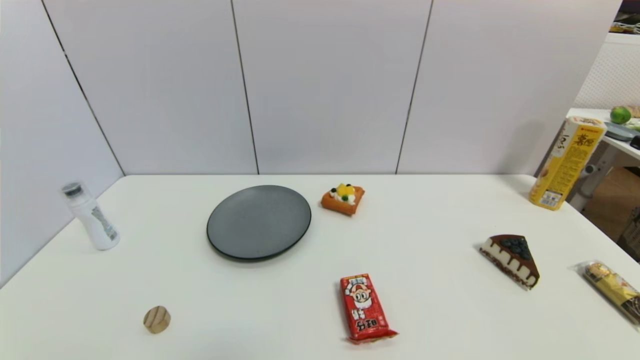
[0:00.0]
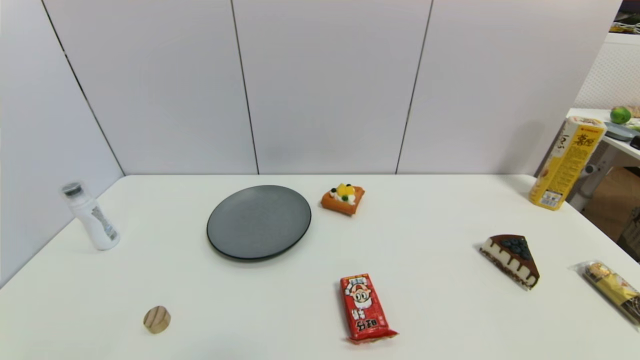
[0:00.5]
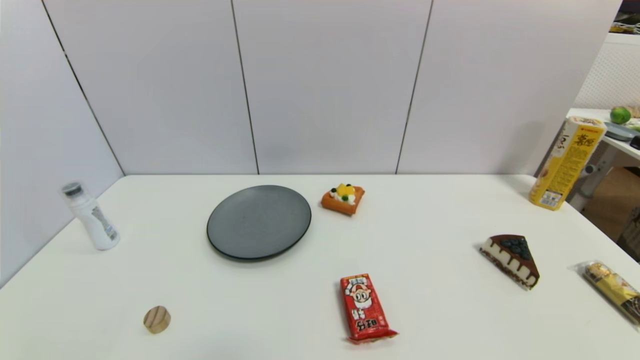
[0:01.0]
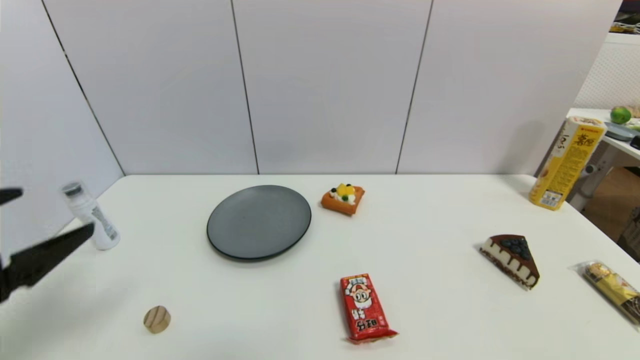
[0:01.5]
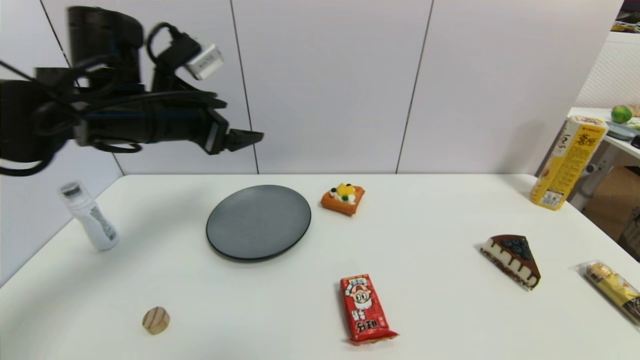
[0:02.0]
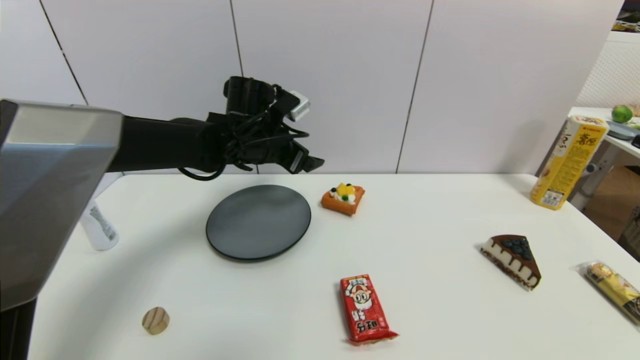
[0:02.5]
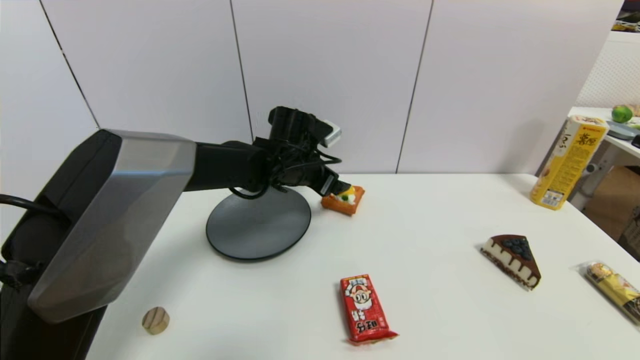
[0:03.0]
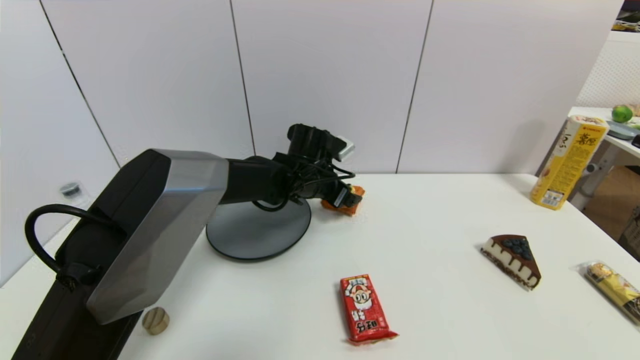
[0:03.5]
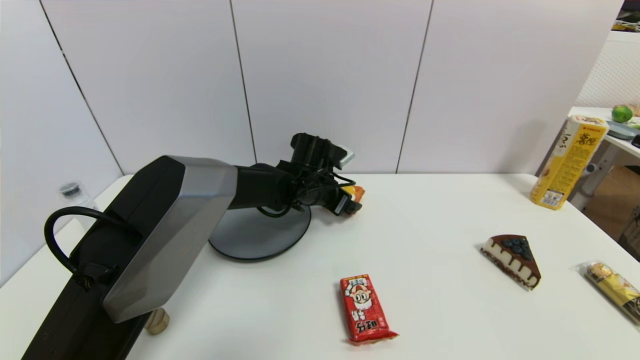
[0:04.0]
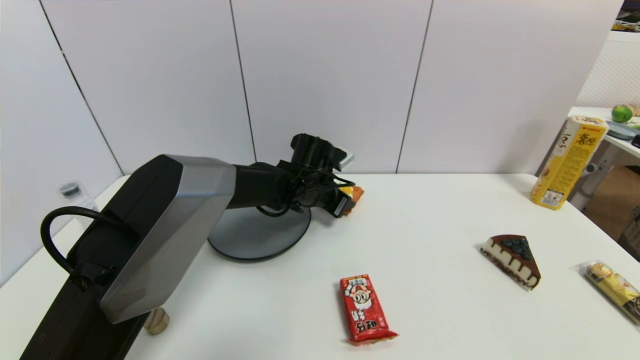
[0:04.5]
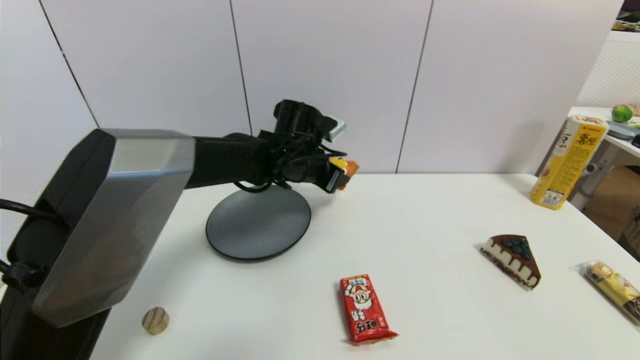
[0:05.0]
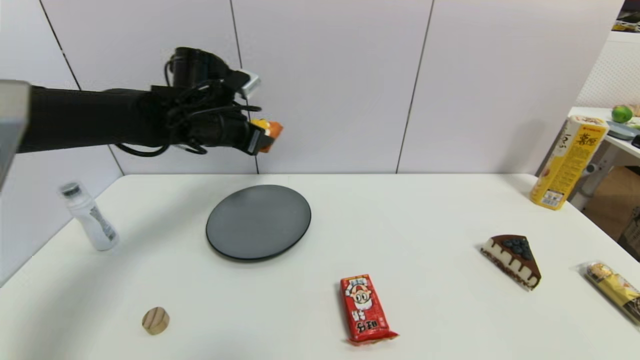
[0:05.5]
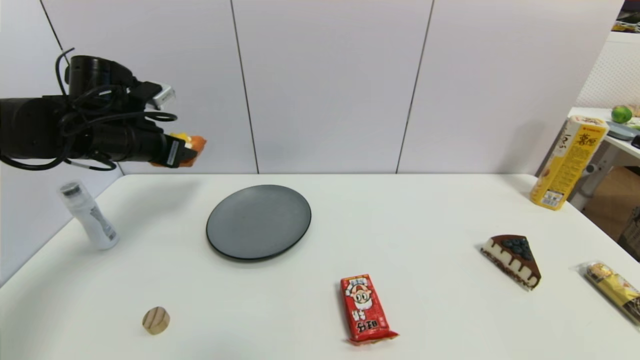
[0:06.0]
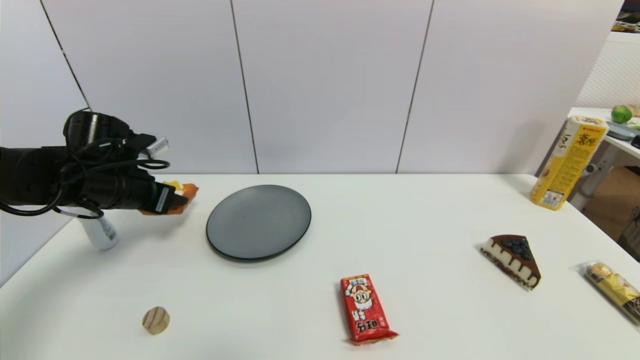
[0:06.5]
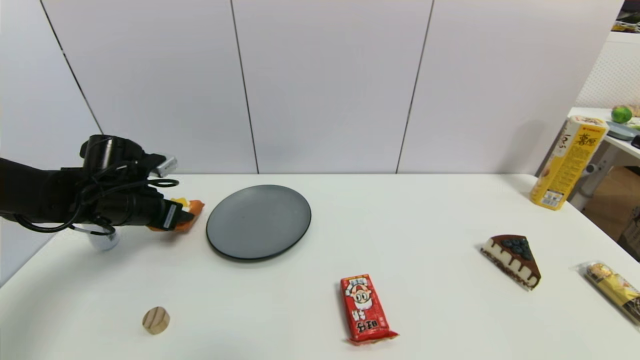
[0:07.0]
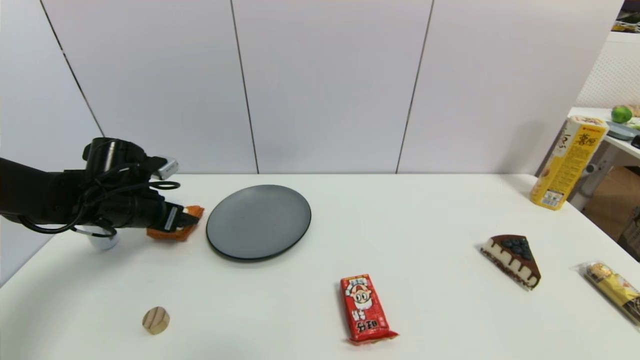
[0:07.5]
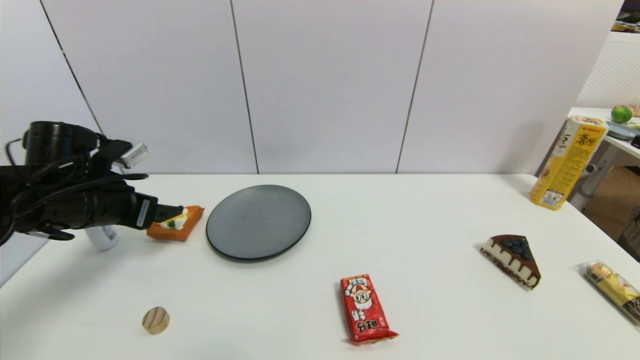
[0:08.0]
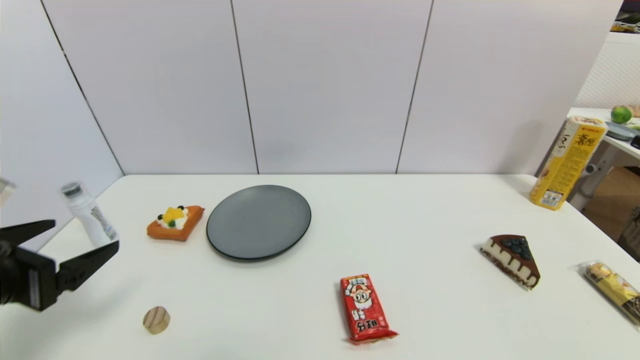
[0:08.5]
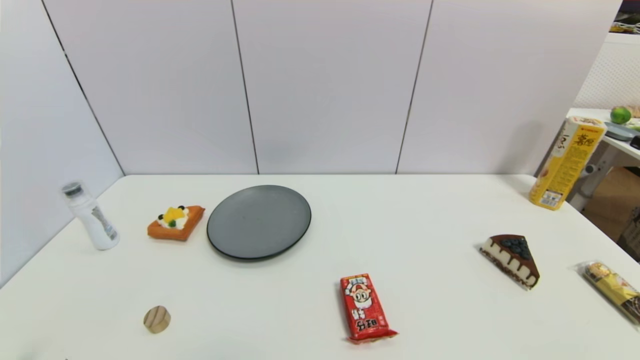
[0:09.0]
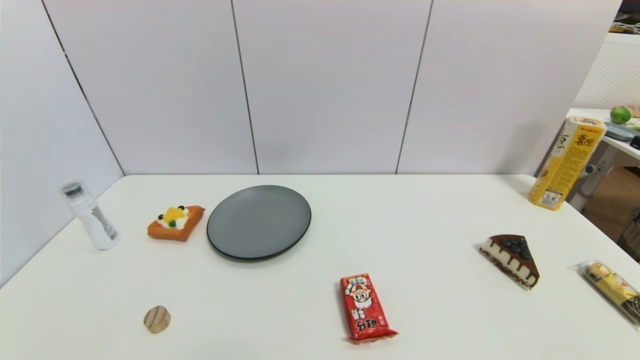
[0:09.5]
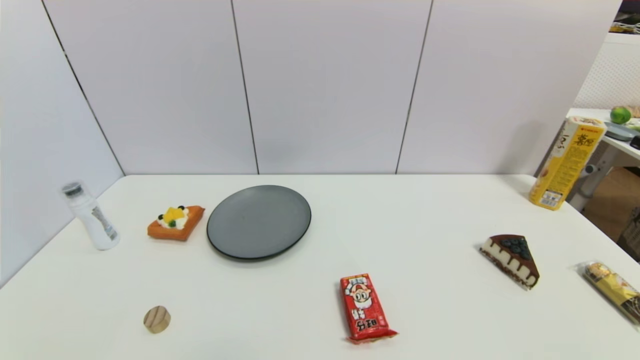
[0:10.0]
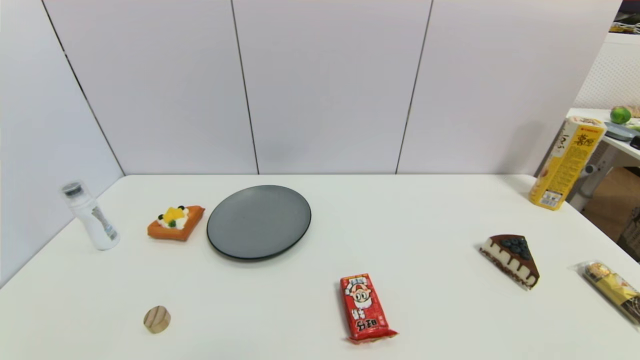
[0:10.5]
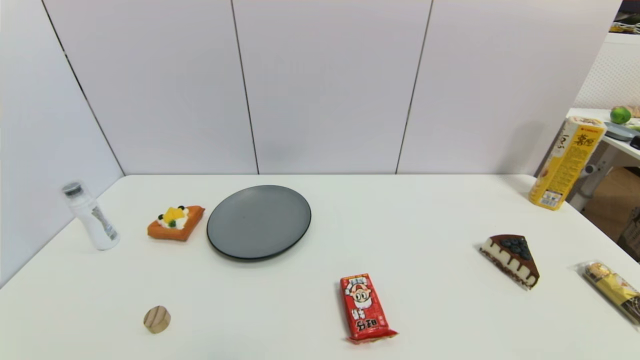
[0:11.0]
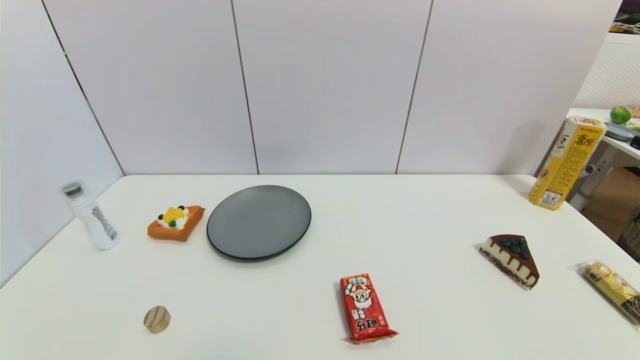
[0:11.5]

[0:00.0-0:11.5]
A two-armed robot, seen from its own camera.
Step, 0:01.5 to 0:04.5: Grasp the pizza with left gripper.
Step, 0:05.0 to 0:07.5: Place the pizza on the table with left gripper.
0:00.0 to 0:02.0: The left gripper heads forward and upward, covering approximately 40 cm.
0:02.0 to 0:04.0: The left gripper moves to the right, downward and forward, about 30 cm.
0:04.0 to 0:06.0: The left gripper heads to the left and upward, covering approximately 30 cm, and closes up.
0:06.0 to 0:07.5: The left gripper travels downward by approximately 10 cm, and opens.
0:07.5 to 0:09.5: The left gripper shifts about 35 cm backward, and opens.
0:09.5 to 0:11.5: Both grippers stay put.

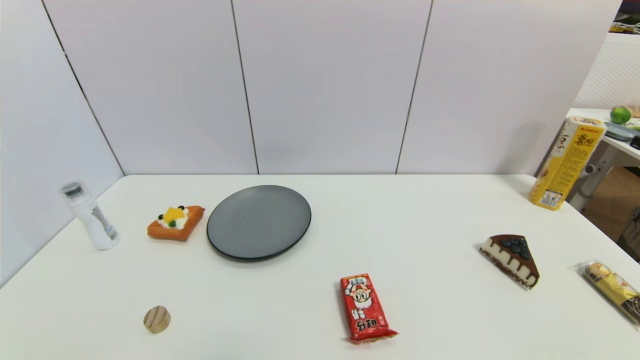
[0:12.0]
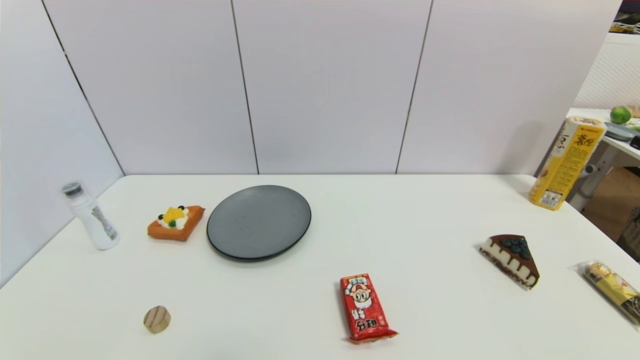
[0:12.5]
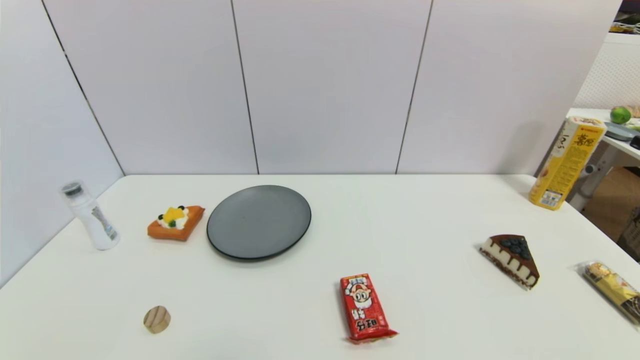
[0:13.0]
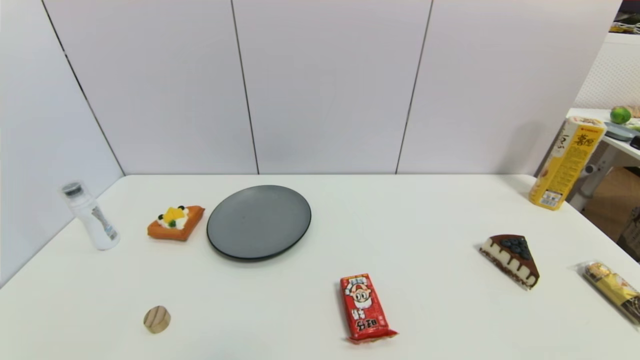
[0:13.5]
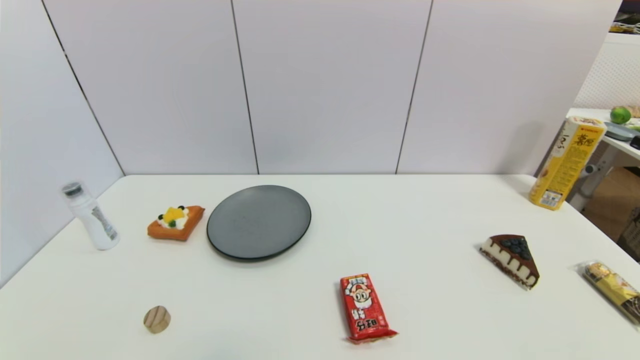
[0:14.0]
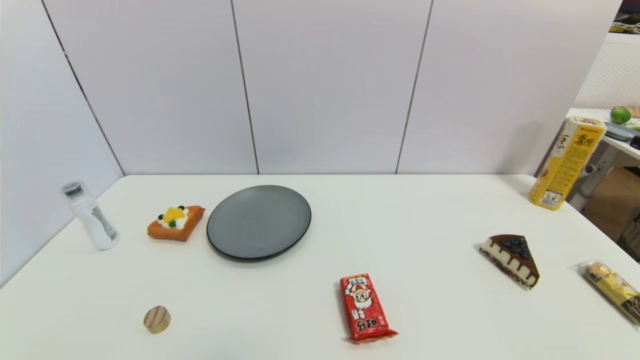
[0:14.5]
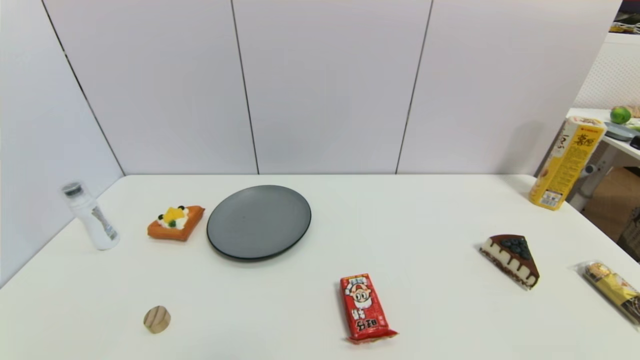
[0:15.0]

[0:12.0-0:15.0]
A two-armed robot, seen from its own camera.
0:12.0 to 0:15.0: The two grippers keep their place.

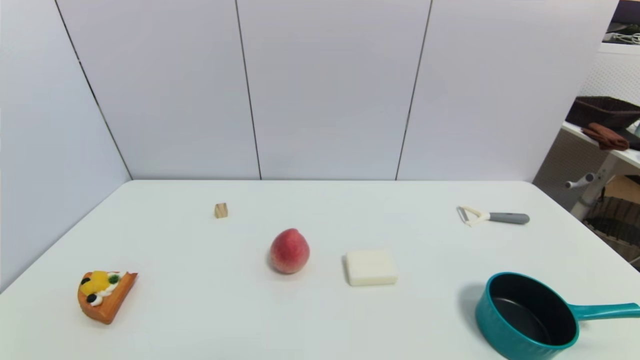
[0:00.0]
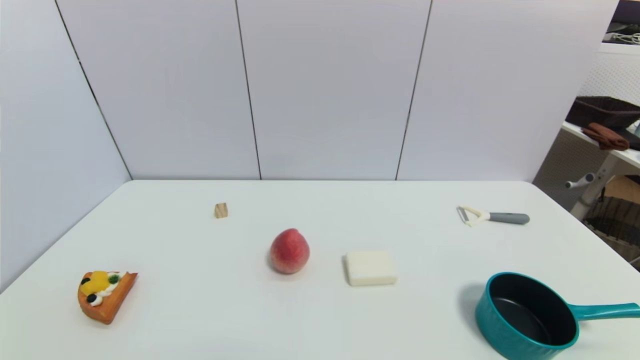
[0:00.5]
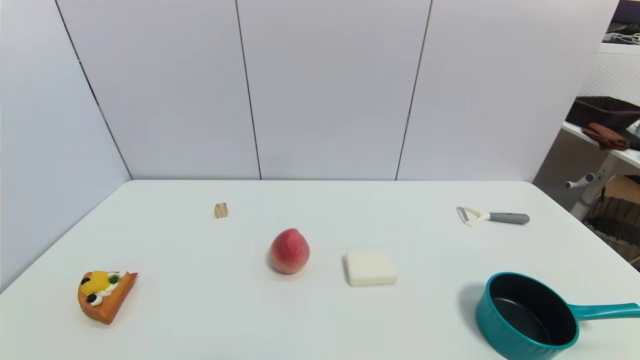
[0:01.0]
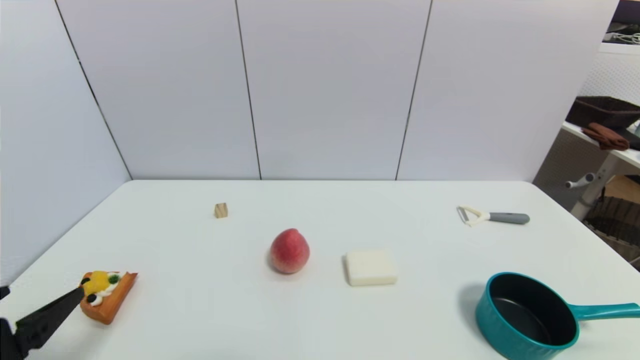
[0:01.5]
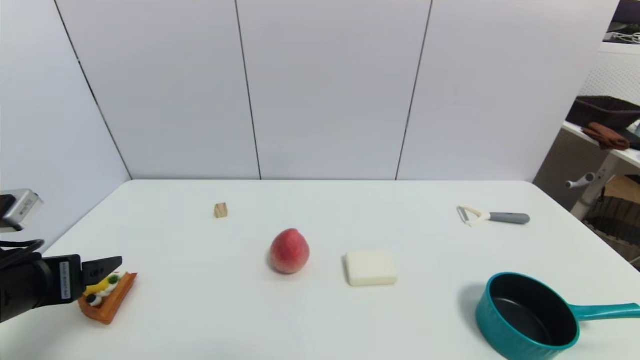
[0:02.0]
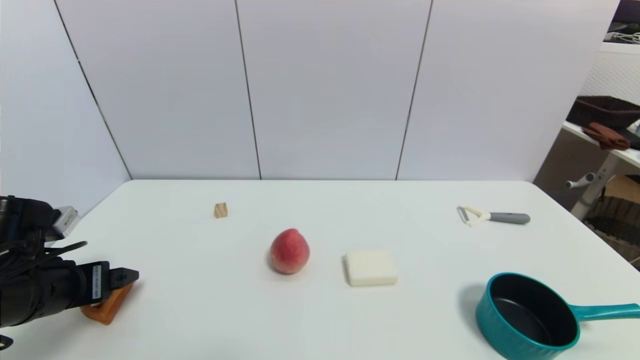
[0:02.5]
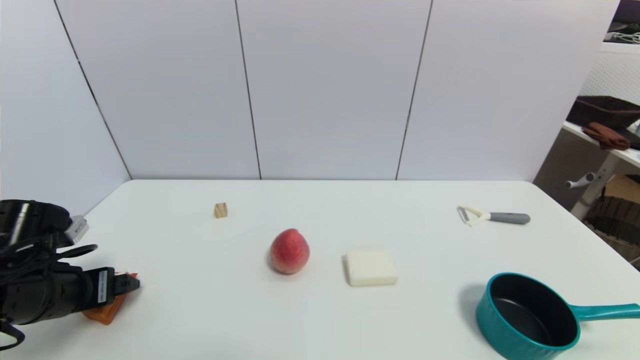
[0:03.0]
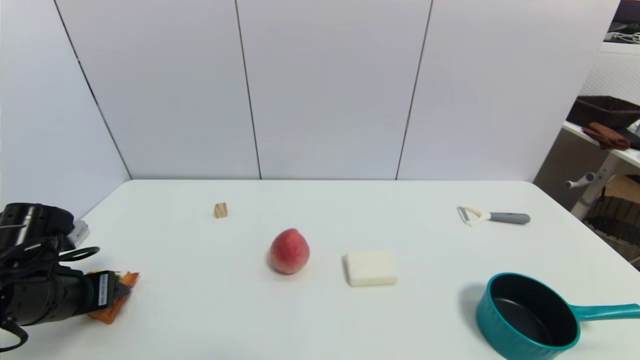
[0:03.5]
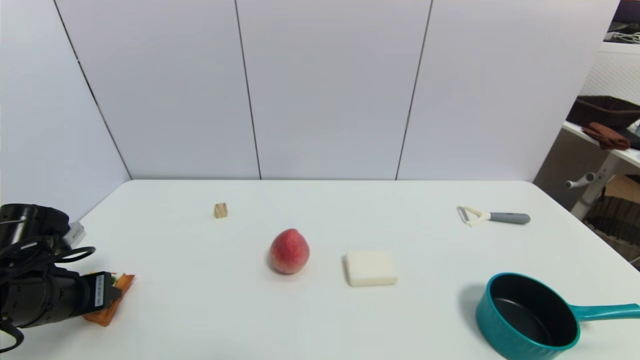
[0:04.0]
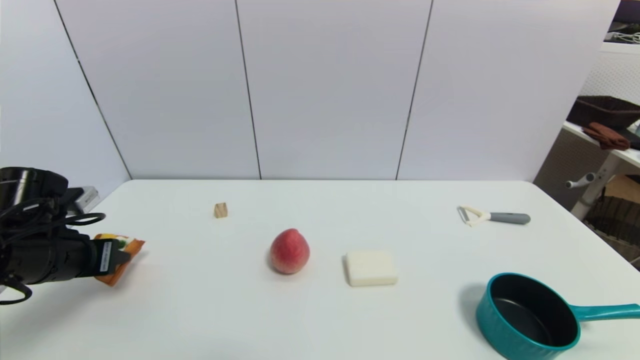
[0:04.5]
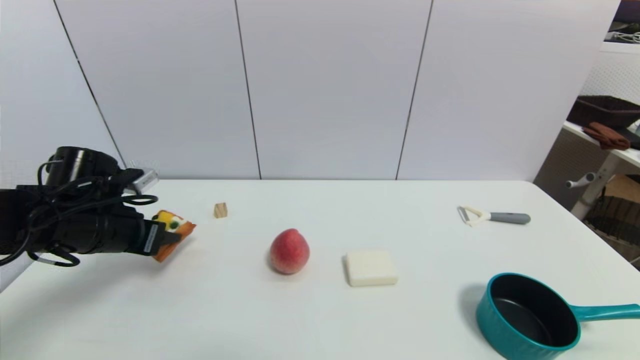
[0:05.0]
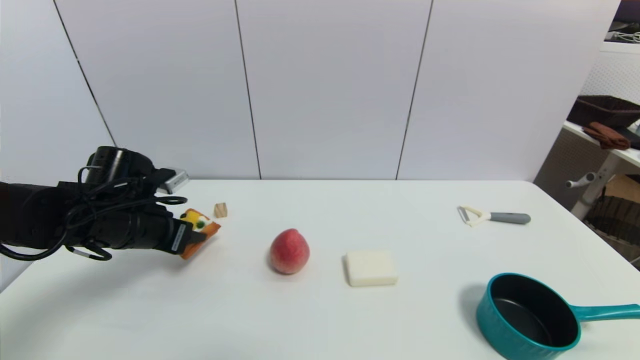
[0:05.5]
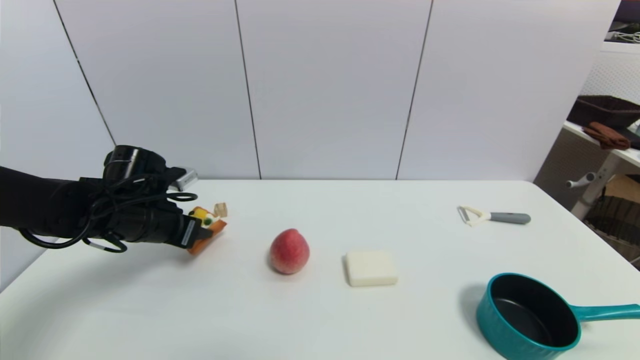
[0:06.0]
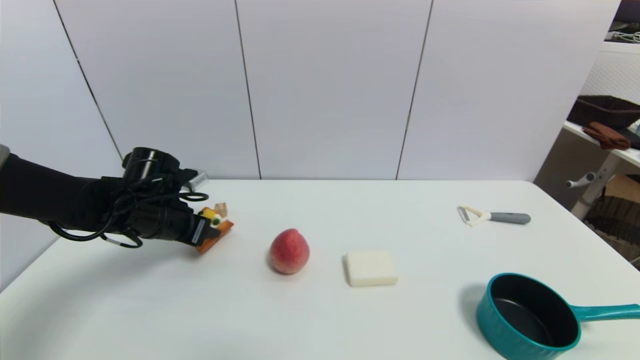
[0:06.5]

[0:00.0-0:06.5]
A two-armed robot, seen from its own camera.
Step, 0:01.5 to 0:04.0: Grasp the pizza with left gripper.
0:00.0 to 0:02.0: The left gripper shifts some 20 cm forward and upward.
0:02.0 to 0:04.5: The left gripper shifts roughly 10 cm forward, and closes up.
0:04.5 to 0:06.5: The left gripper moves forward and to the right, roughly 10 cm.
